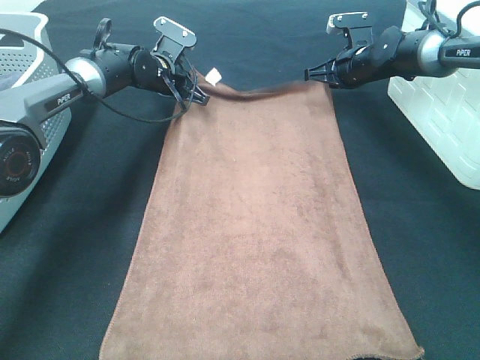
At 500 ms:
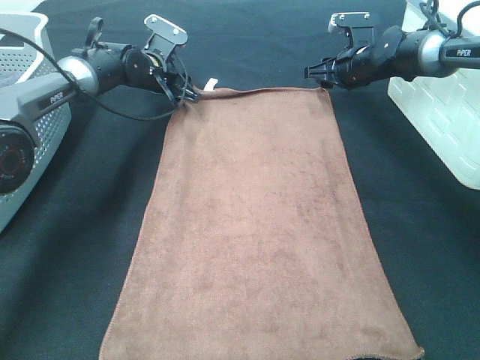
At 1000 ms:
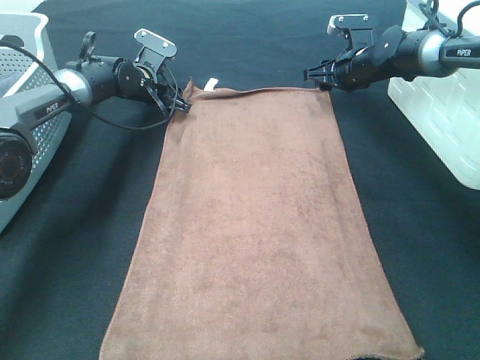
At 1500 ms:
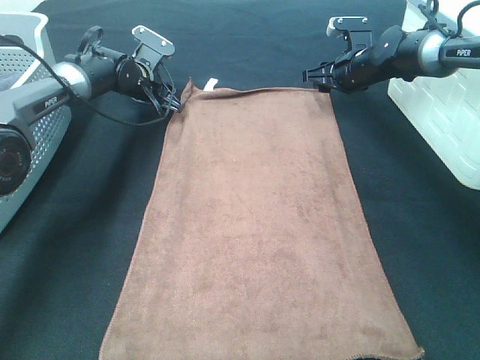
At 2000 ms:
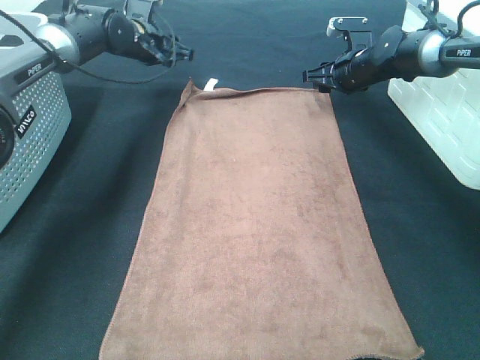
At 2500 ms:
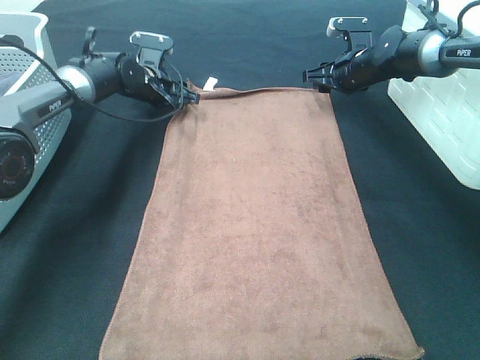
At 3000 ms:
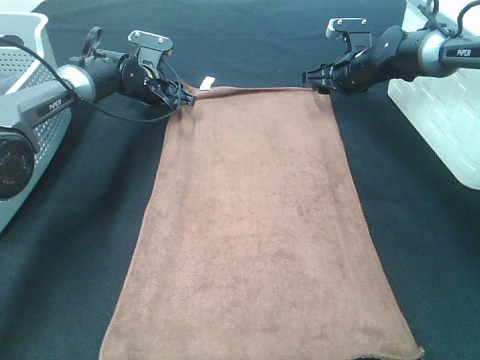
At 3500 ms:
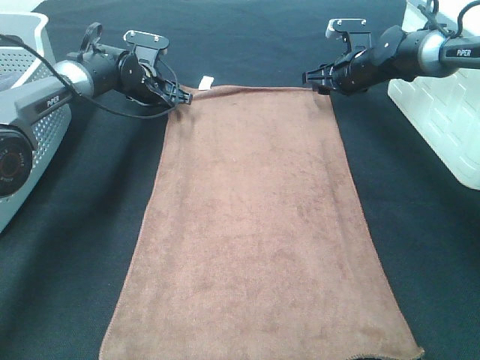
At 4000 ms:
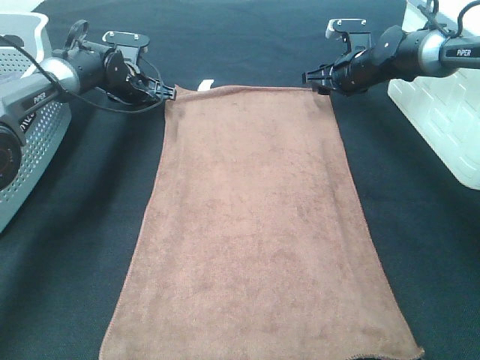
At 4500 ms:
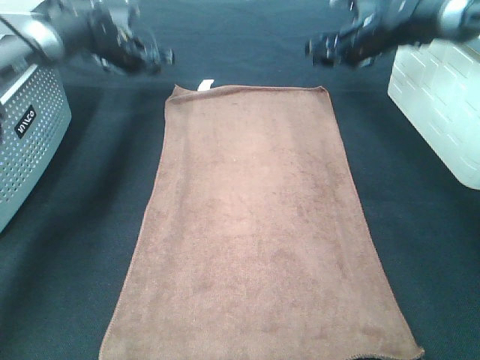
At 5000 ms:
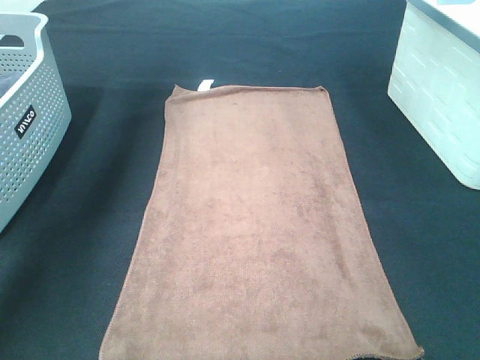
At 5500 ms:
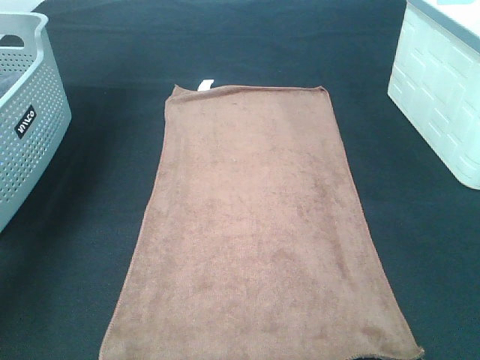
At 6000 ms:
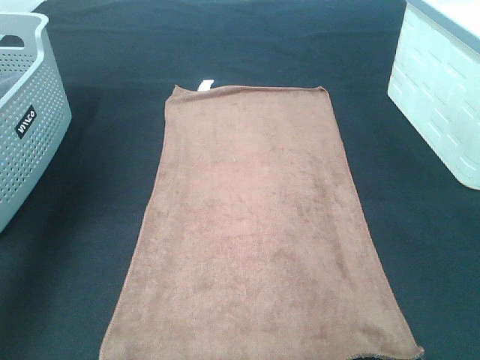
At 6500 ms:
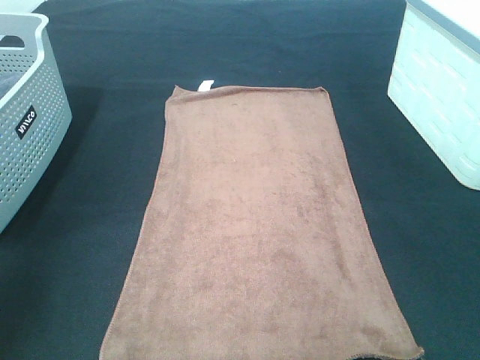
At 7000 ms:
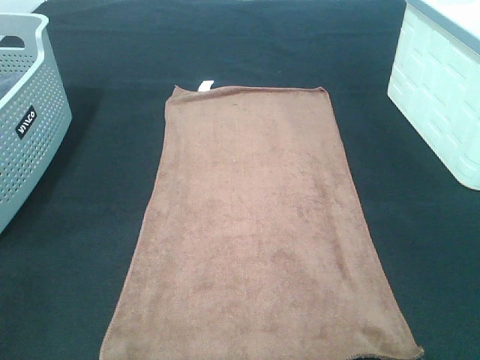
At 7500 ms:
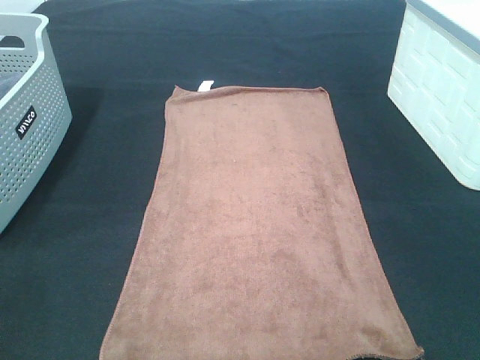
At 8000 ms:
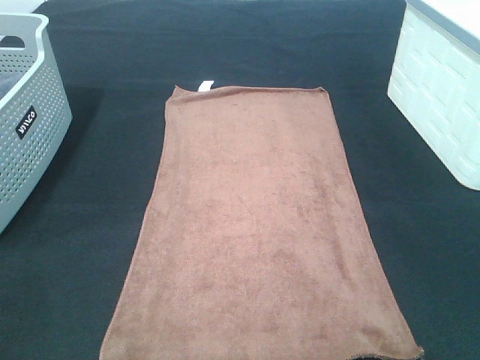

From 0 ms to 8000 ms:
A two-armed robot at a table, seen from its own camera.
Task of the whole recording: Remove the towel and place it.
From 0 ms to 2000 ms: The left gripper goes about 5 cm upward, and opens up.
From 2000 ms to 4000 ms: The left gripper travels downward by roughly 5 cm.
From 4000 ms to 6000 ms: The right gripper moves backward and upward, roughly 40 cm, while the left gripper moves upward and backward, about 40 cm.
From 6000 ms to 8000 ms: The left gripper shifts some 35 cm backward and downward.

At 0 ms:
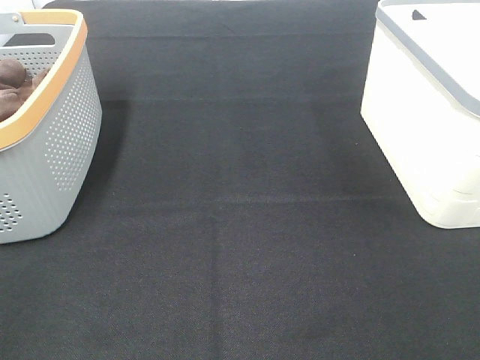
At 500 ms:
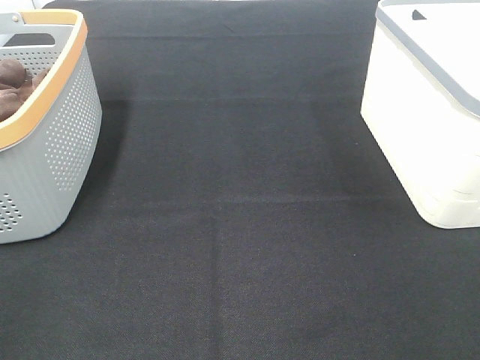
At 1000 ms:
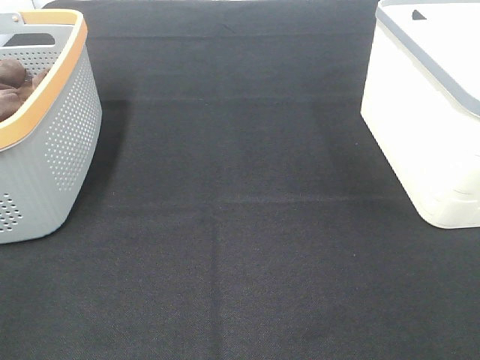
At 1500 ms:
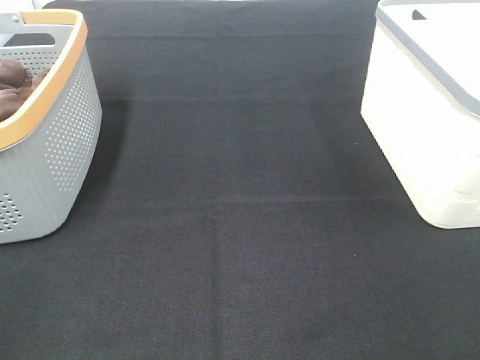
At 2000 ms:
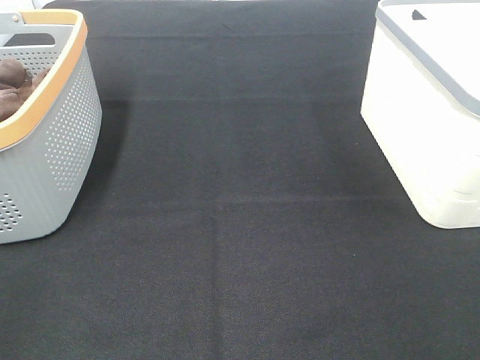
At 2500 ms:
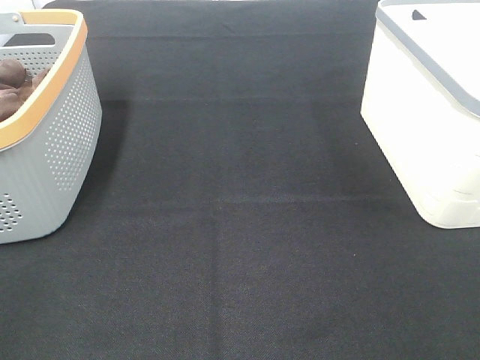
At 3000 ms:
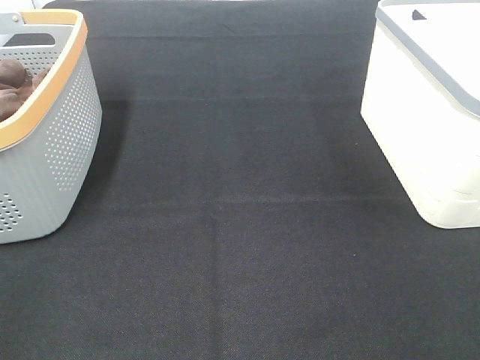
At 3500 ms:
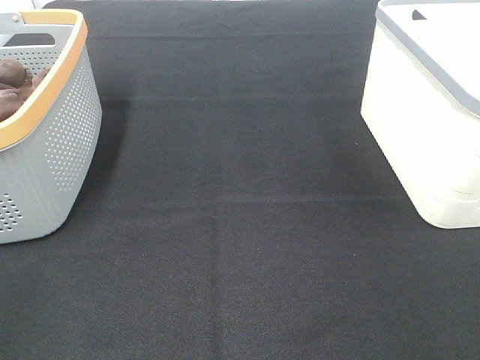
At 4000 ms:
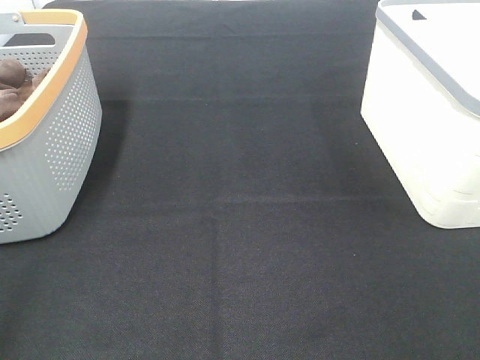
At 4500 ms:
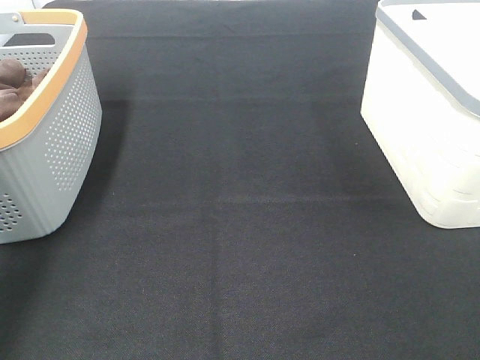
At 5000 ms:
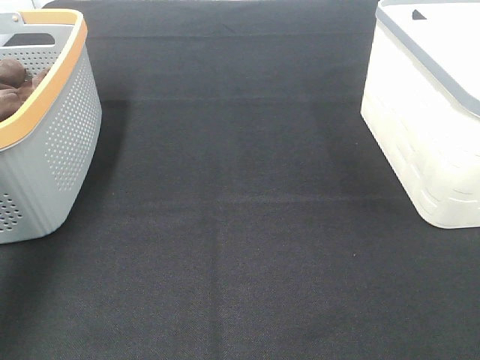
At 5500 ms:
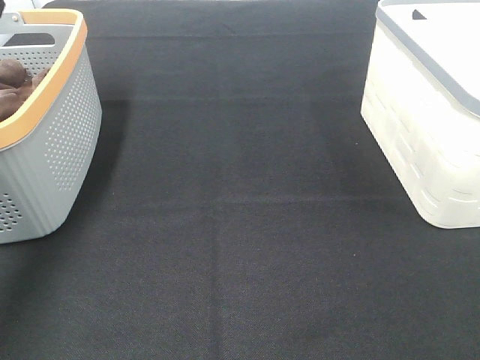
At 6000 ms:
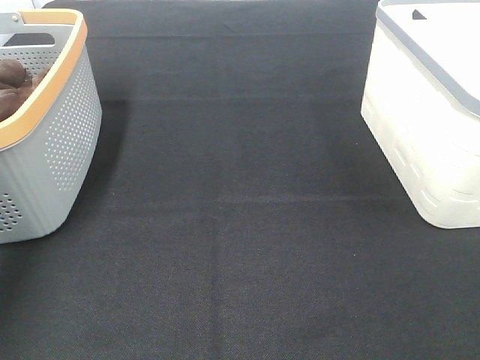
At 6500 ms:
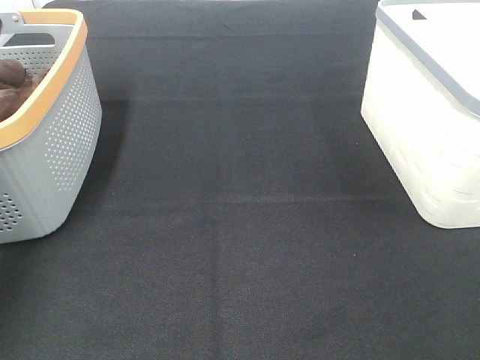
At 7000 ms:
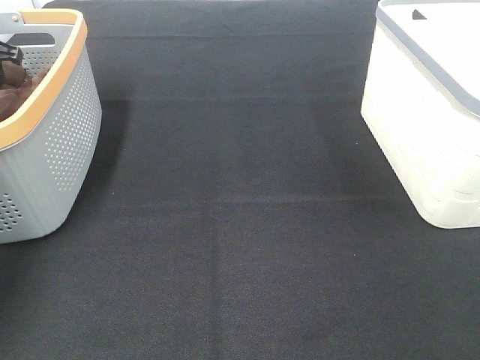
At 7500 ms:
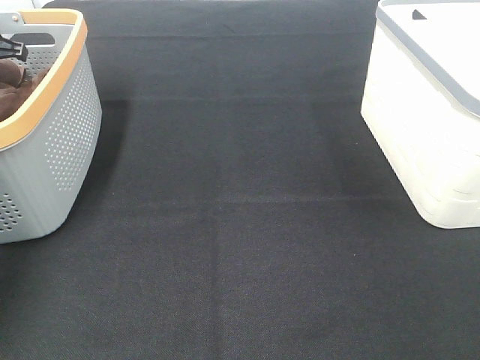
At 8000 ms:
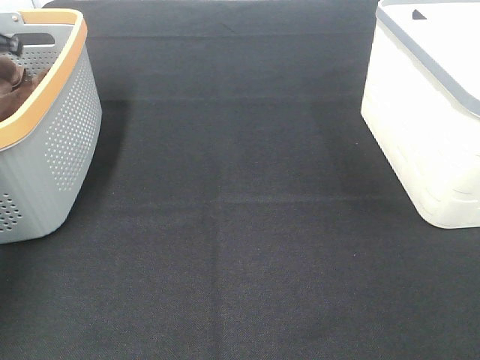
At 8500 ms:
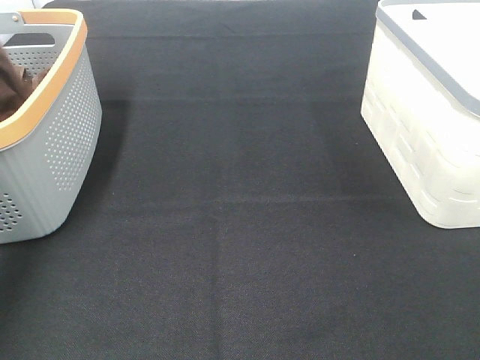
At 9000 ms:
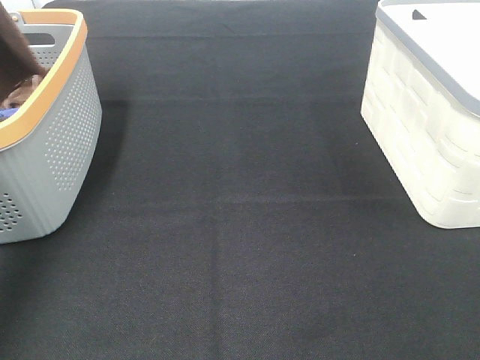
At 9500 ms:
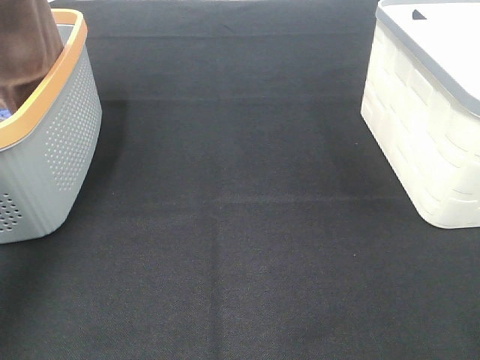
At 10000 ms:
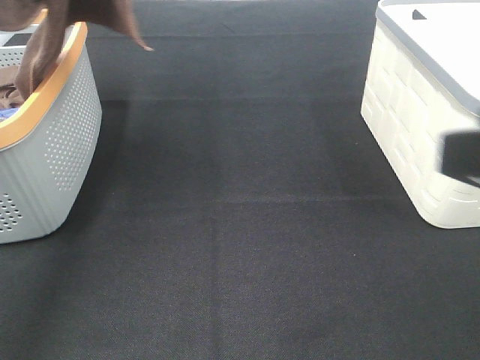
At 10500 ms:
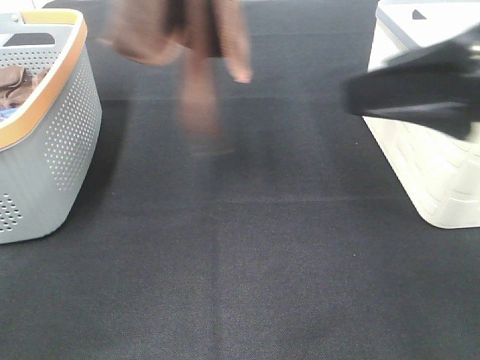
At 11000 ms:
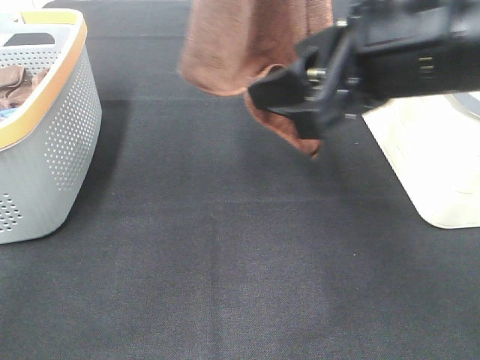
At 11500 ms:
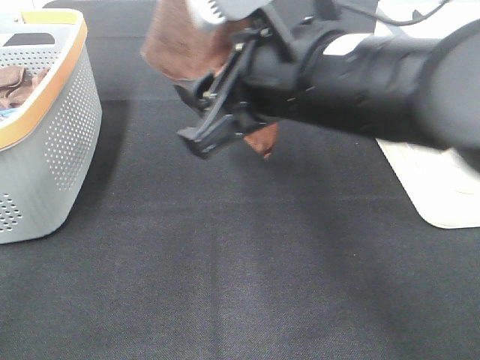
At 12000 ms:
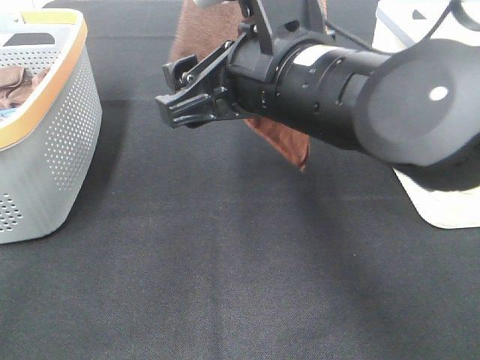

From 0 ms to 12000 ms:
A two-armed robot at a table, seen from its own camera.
Task of the whole recording: Remove the towel and place it.
From 0 ms to 2000 ms: The two grippers keep their place.
From 4000 ms to 6000 ms: The left gripper travels forward by approximately 40 cm.
From 8000 ms to 10000 ms: The right gripper travels forward and to the left by some 10 cm, while the left gripper is displaced upward, backward and to the right by roughly 35 cm.
From 10000 ms to 12000 ms: The right gripper shifts some 25 cm to the left and forward; the left gripper shifts approximately 15 cm to the right.

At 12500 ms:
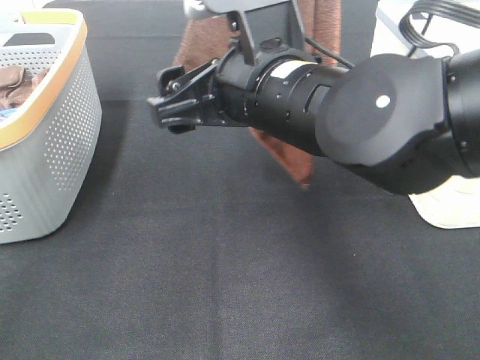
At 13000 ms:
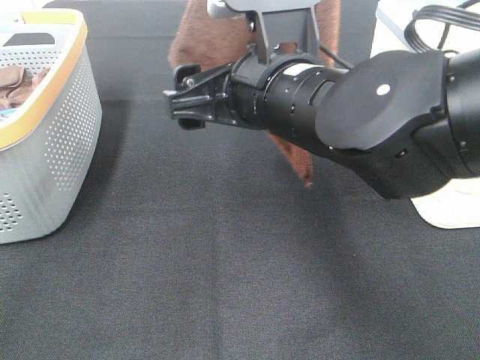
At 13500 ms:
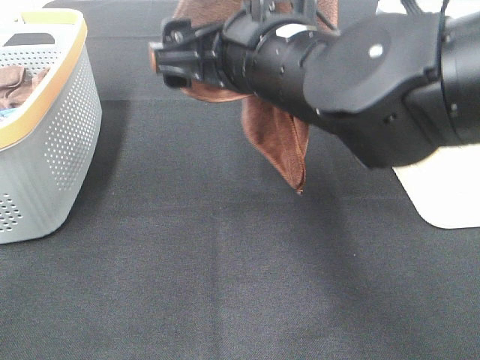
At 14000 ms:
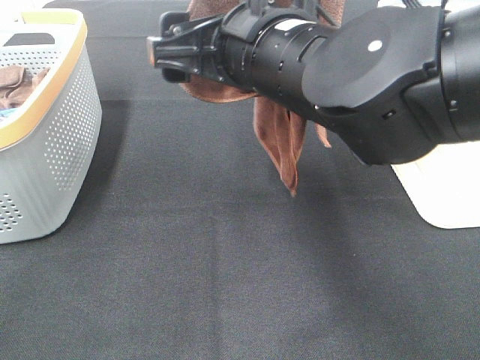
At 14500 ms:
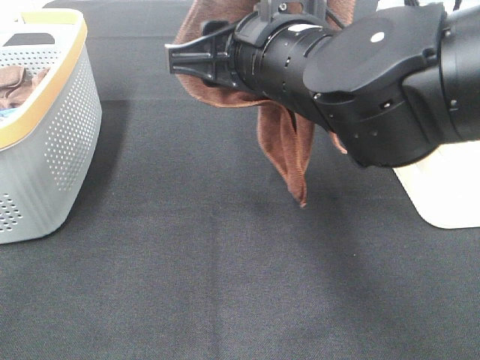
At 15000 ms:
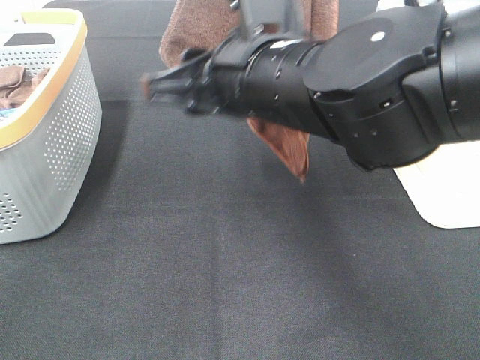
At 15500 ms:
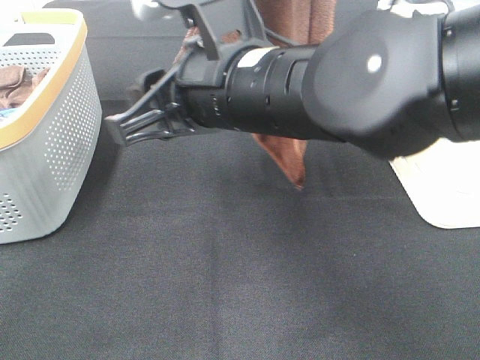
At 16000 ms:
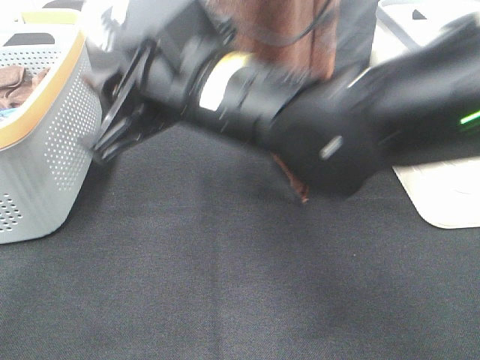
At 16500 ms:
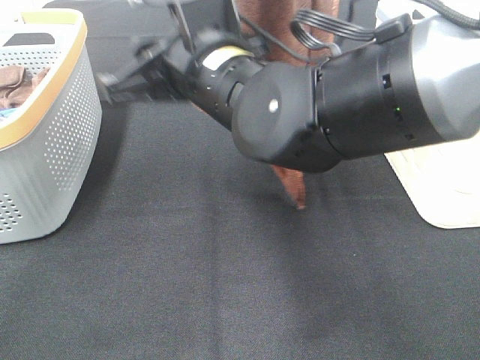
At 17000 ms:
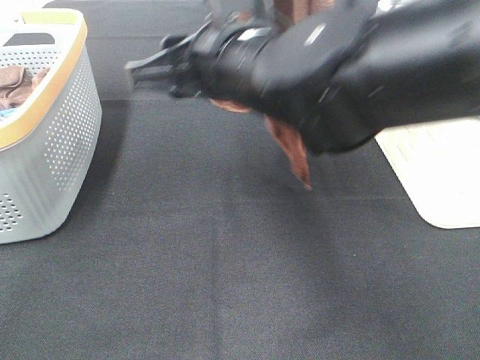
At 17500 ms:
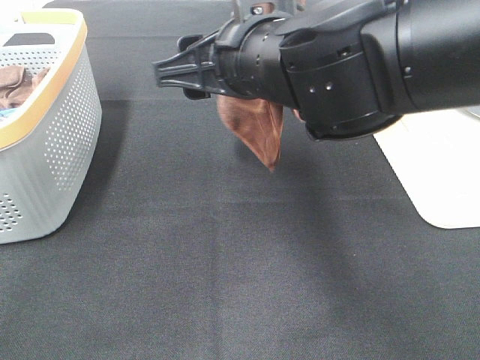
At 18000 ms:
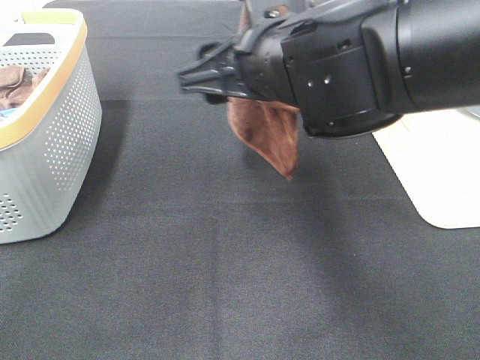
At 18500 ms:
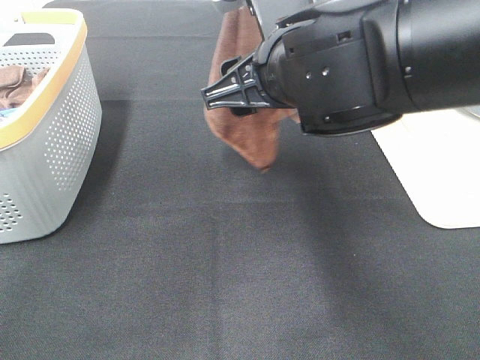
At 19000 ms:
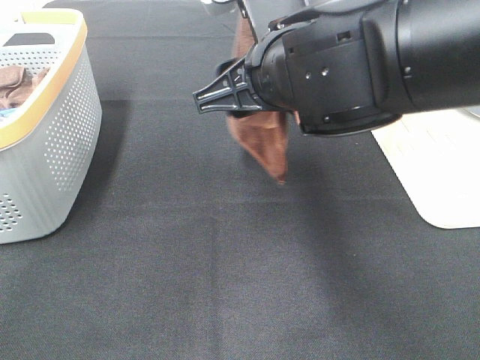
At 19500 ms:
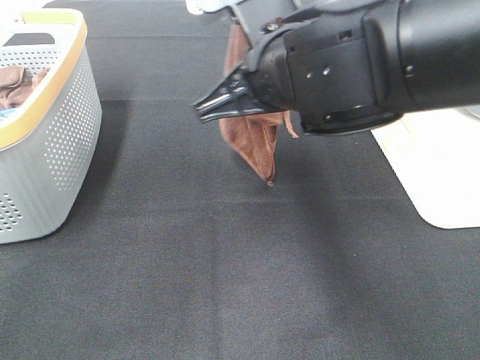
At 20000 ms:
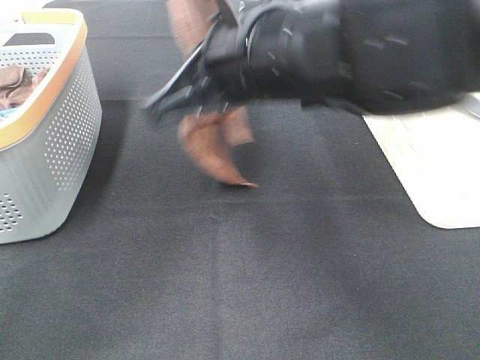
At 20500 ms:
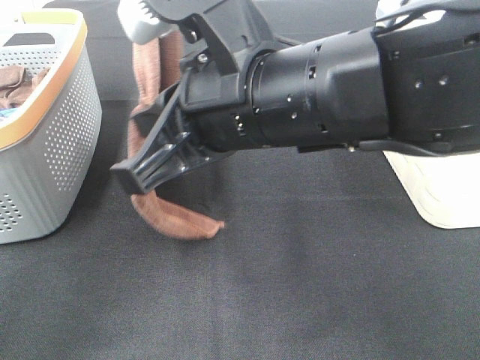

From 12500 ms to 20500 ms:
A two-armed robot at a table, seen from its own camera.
Task of the whole recording: Remove the towel and place it.
Step, from 12500 ms to 17500 ms: Right hand: grab a corner of the brown towel and straighten it.
Step, from 18000 ms to 20000 ms: Left hand: spread the brown towel flat on the table.
Step, from 18000 ms to 20000 ms: Right hand: spread the brown towel flat on the table.
From 12500 ms to 14500 ms: The right gripper closes.
From 14500 ms to 16500 ms: The right gripper moves to the left, roughly 5 cm.
From 16500 ms to 18500 ms: The right gripper goes approximately 5 cm to the right.
From 18500 ms to 20500 ms: The left gripper moves to the left, some 10 cm. Meanwhile the right gripper is displaced backward by roughly 5 cm, and closes up.
